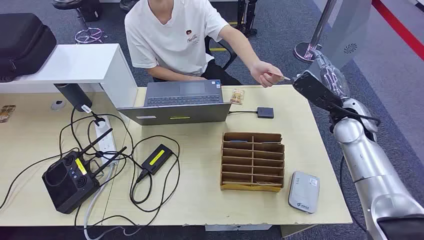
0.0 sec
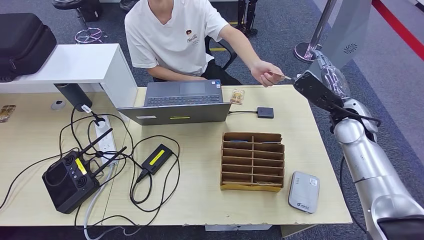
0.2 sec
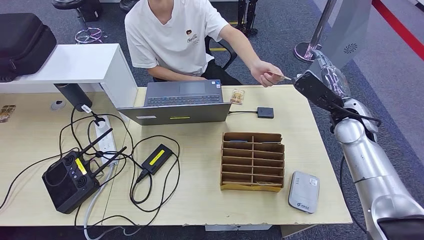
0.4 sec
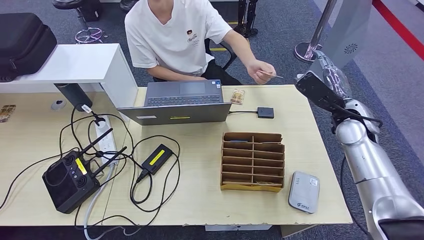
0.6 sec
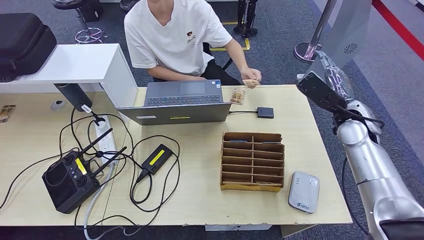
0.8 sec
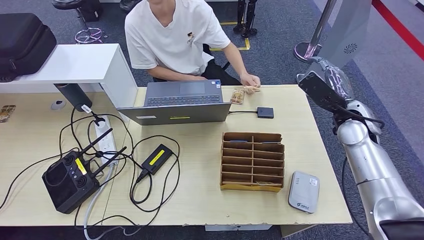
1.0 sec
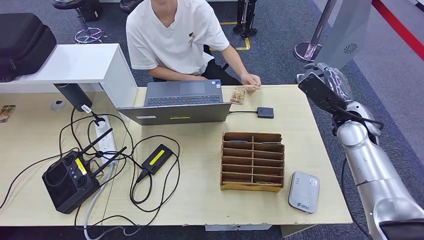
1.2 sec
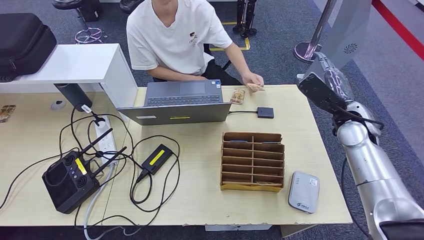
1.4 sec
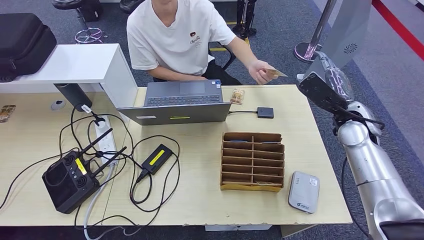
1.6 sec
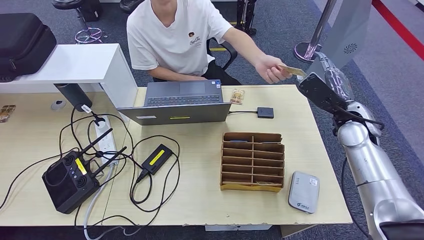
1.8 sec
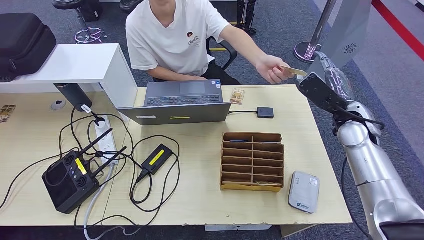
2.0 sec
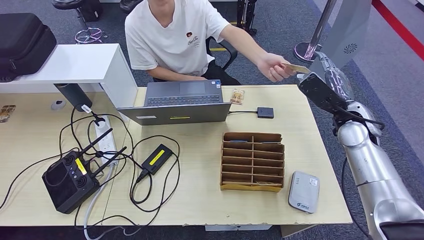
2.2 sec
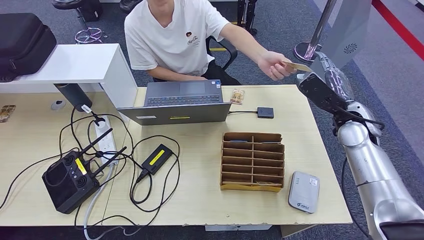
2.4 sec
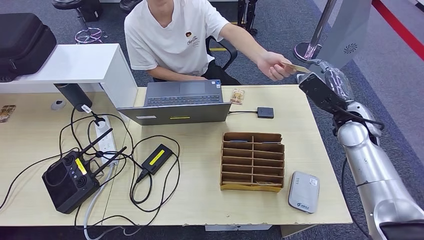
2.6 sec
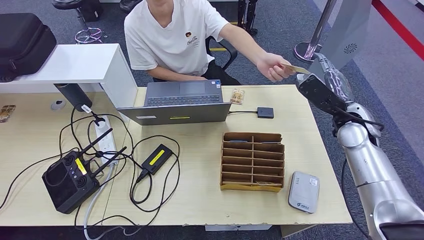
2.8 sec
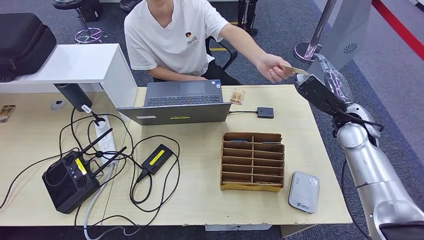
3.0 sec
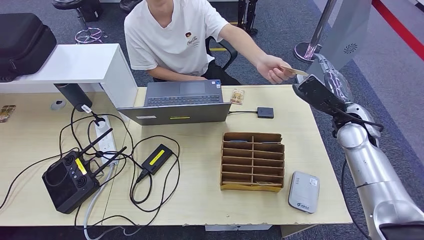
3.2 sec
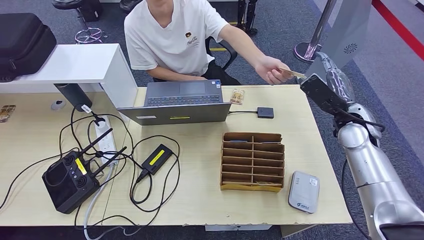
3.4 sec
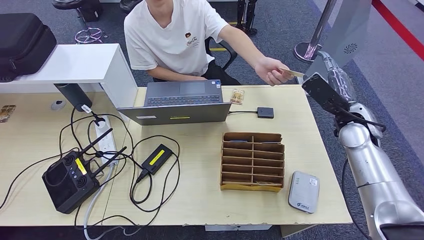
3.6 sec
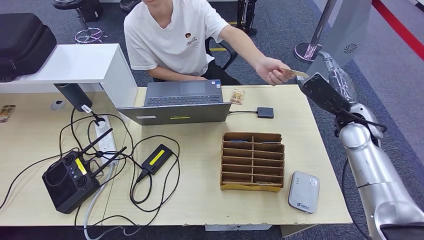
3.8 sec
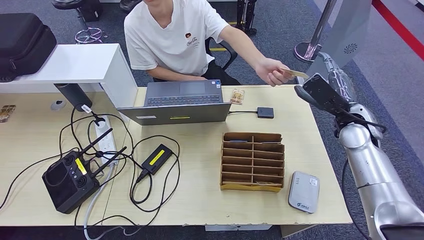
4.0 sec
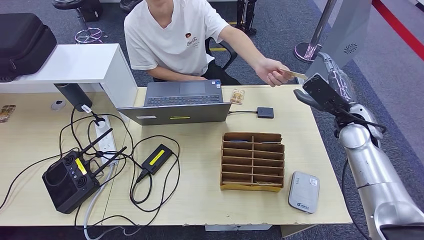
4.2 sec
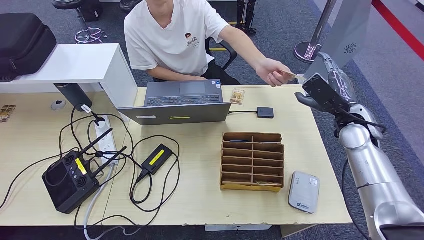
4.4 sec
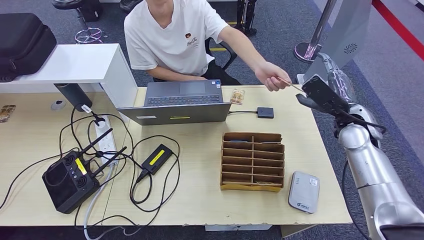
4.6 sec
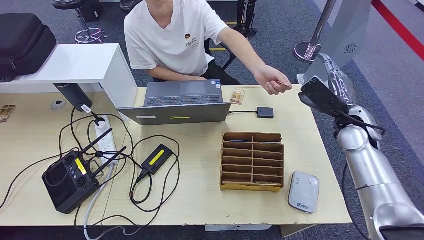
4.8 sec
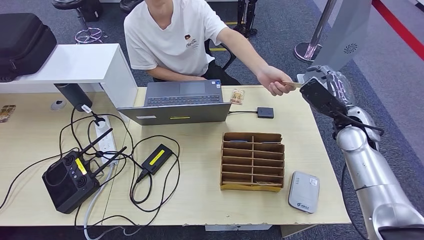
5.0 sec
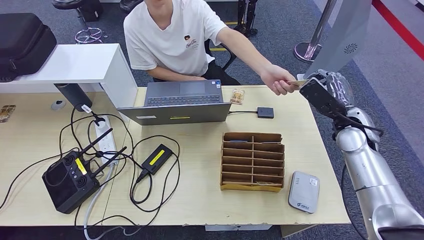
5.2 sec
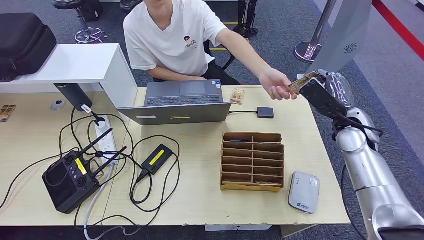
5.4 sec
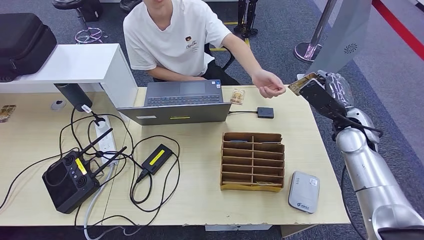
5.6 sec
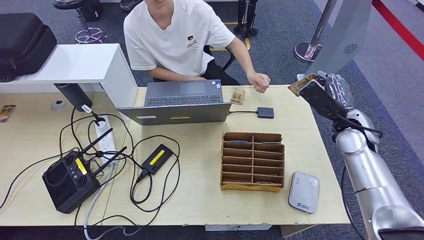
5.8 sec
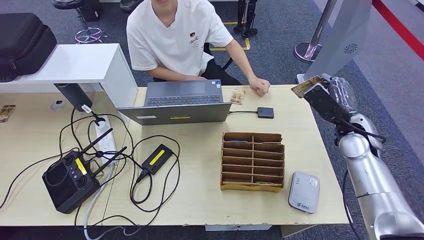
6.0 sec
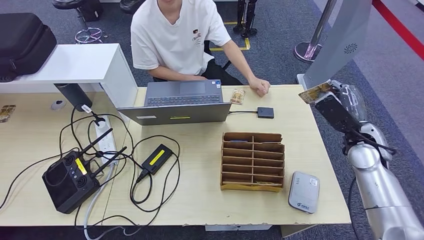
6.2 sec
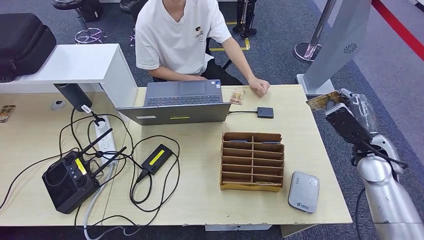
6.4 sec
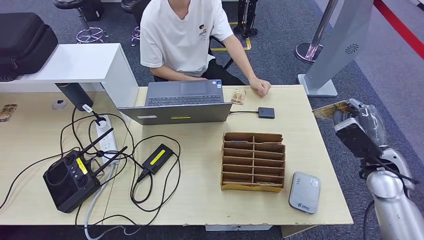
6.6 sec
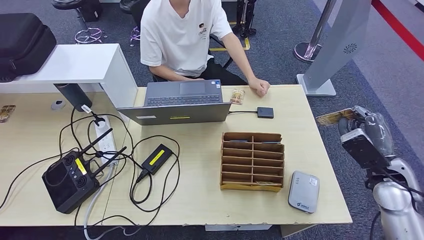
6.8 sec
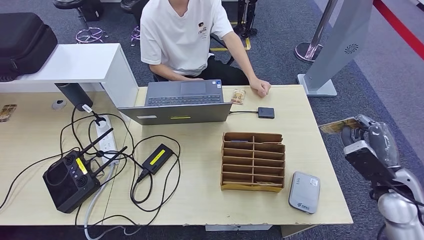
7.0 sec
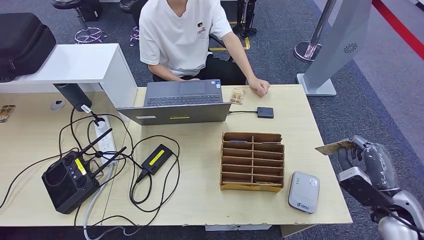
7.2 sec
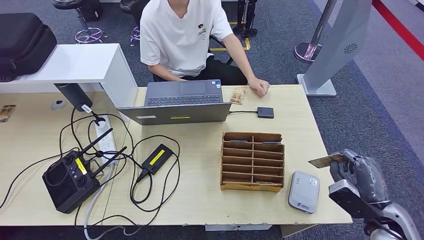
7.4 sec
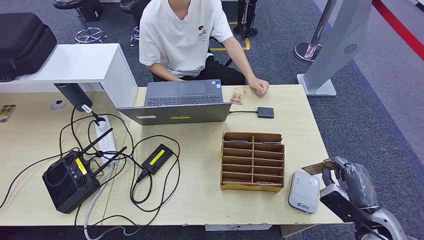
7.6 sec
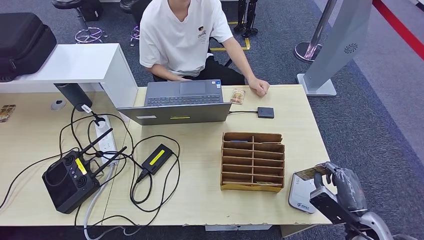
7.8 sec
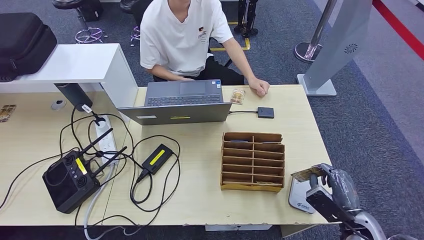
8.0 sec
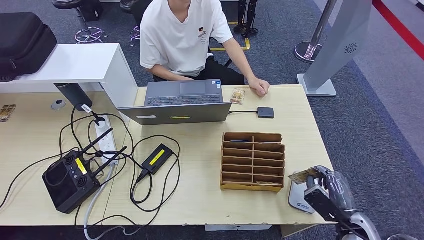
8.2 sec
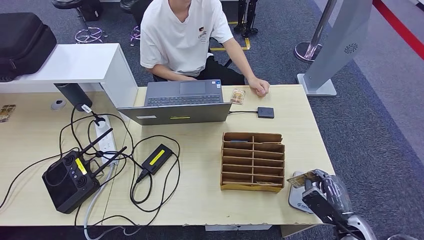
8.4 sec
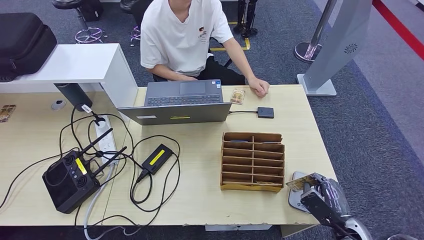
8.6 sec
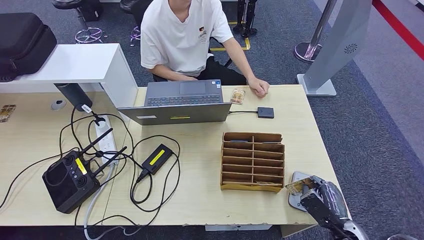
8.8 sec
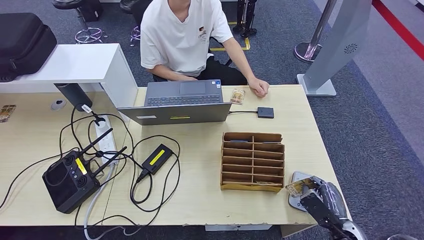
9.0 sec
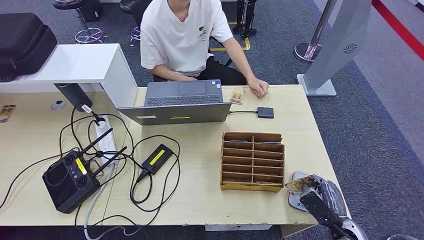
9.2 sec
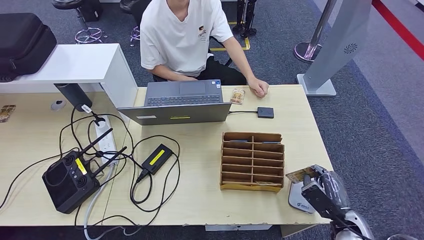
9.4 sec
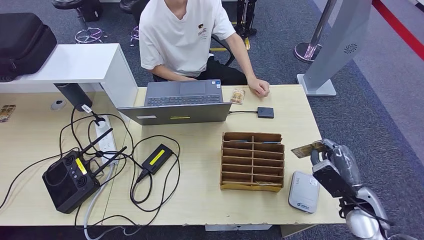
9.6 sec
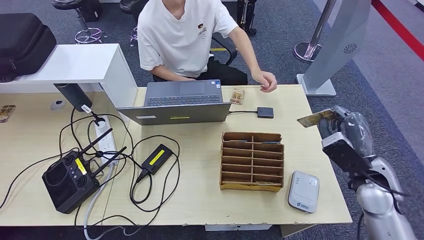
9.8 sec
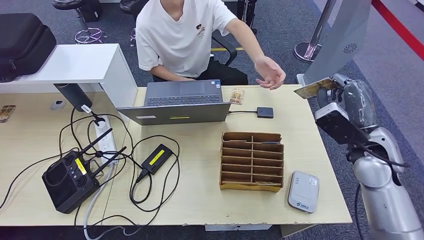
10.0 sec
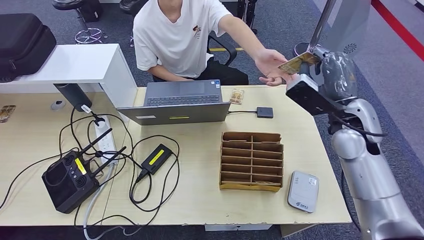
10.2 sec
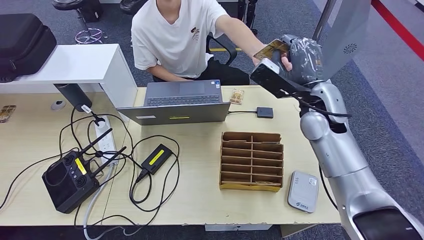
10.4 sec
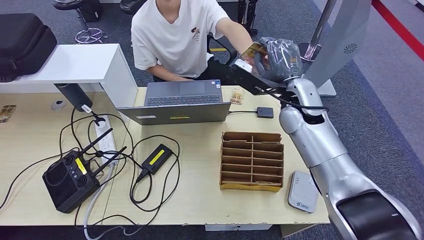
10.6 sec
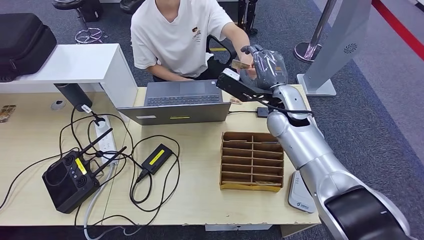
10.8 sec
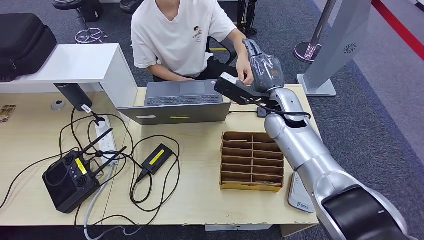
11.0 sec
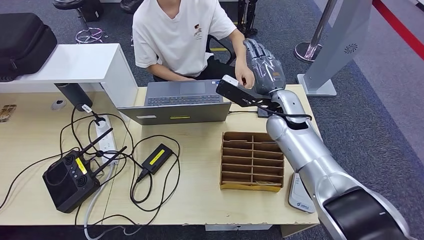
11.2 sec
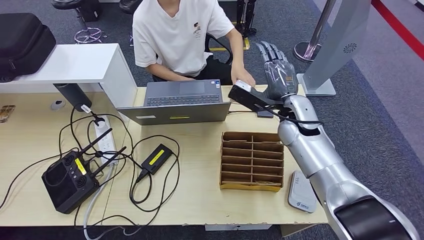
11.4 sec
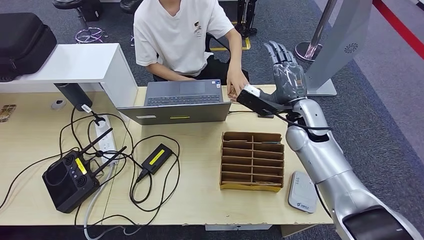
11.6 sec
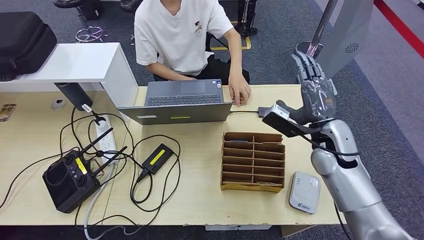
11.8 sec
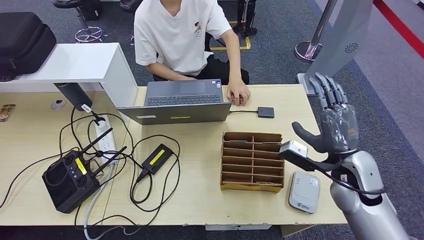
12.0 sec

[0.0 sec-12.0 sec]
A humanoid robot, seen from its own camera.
Step, 0.0 sec to 4.8 sec: Take the ID card from the person's hand.
Step, 5.2 sec to 6.6 sec: Place the ID card on the card reader.
1.6 sec to 4.4 sec: Both hands stay put.
4.4 sec to 6.0 sec: The hands move only a little.
6.0 sec to 7.6 sec: The right hand is displaced backward and downward by about 25 cm.
7.6 sec to 9.0 sec: The right hand heads downward, covering about 10 cm.
9.0 sec to 10.4 sec: The right hand moves upward and forward, approximately 35 cm.
10.4 sec to 12.0 sec: The right hand travels backward, downward and to the right by roughly 15 cm.

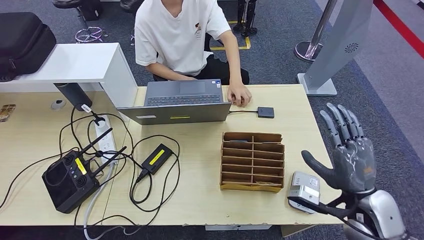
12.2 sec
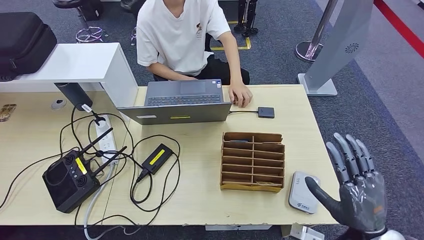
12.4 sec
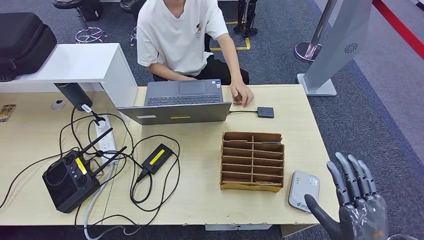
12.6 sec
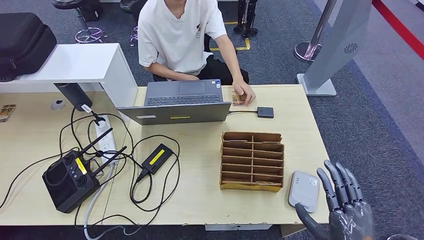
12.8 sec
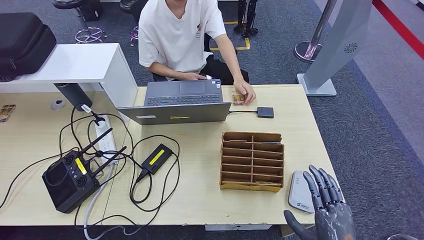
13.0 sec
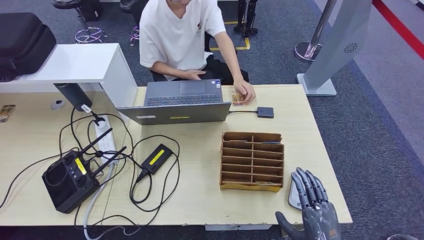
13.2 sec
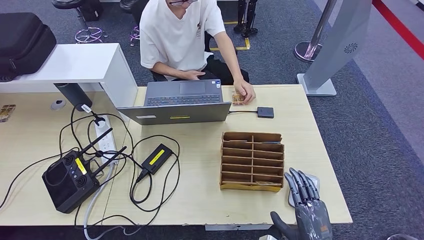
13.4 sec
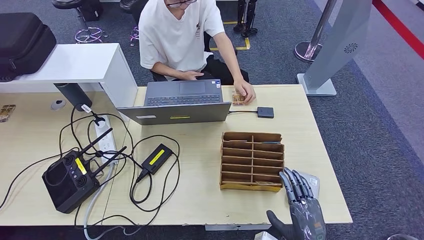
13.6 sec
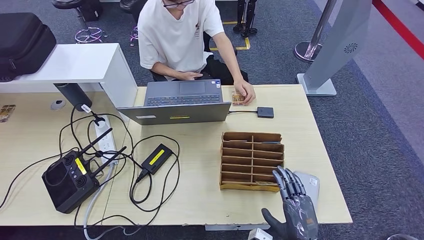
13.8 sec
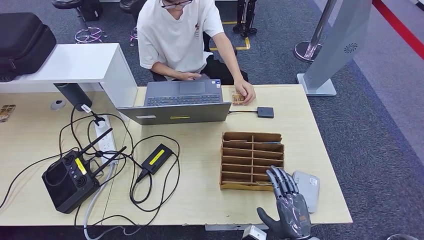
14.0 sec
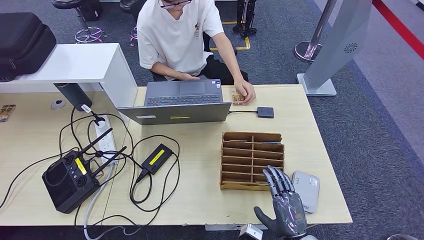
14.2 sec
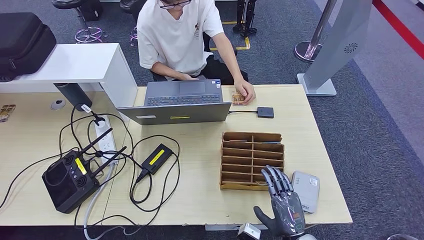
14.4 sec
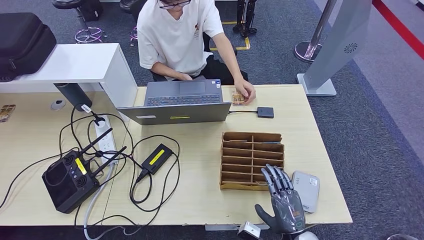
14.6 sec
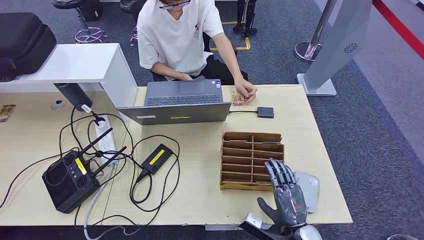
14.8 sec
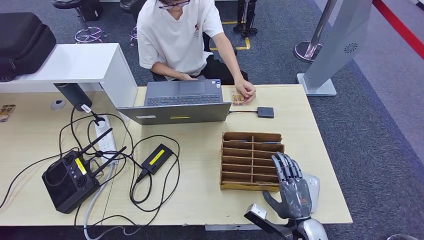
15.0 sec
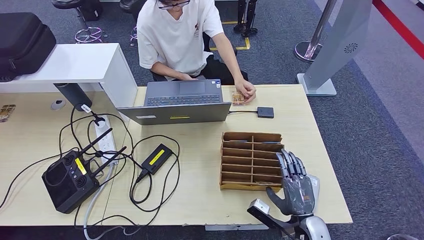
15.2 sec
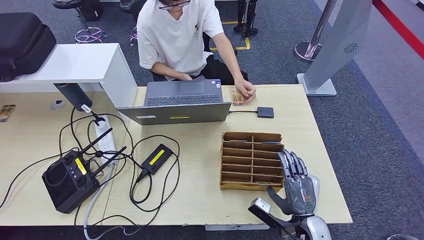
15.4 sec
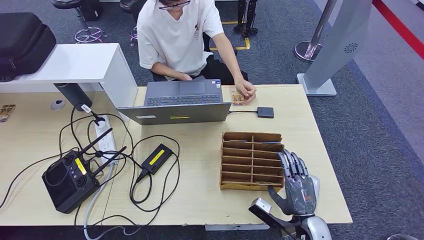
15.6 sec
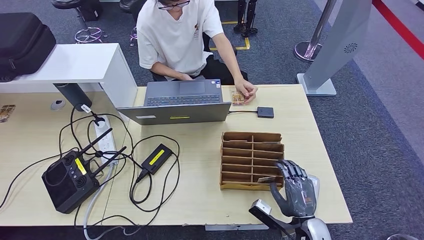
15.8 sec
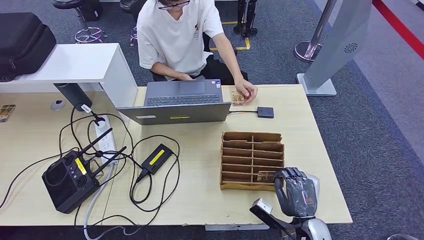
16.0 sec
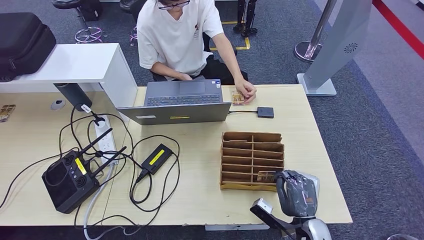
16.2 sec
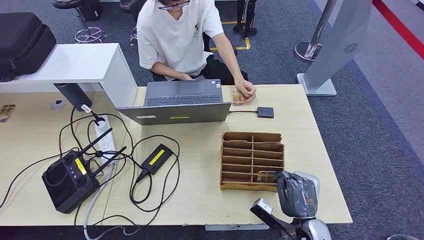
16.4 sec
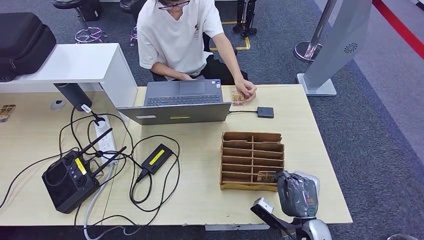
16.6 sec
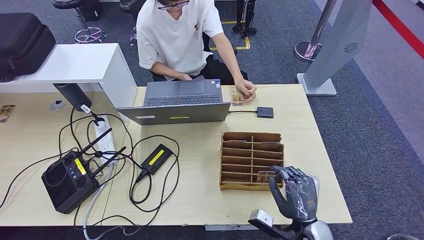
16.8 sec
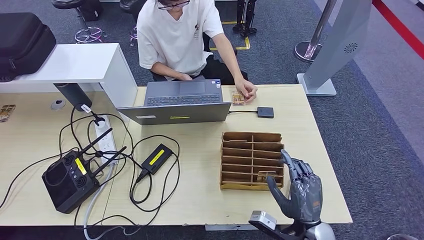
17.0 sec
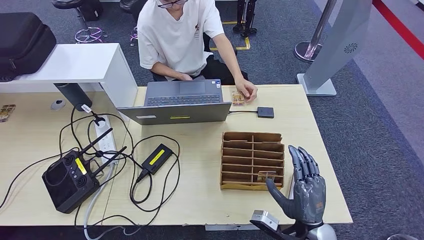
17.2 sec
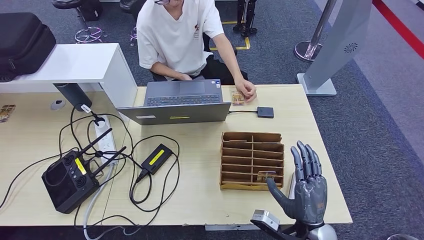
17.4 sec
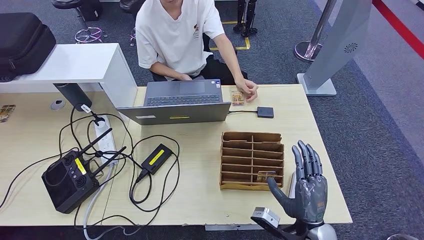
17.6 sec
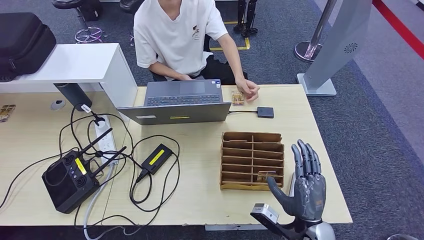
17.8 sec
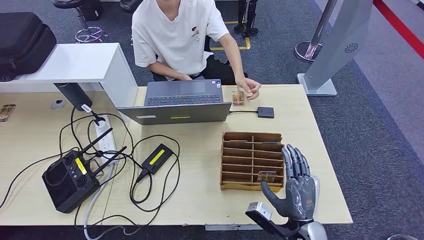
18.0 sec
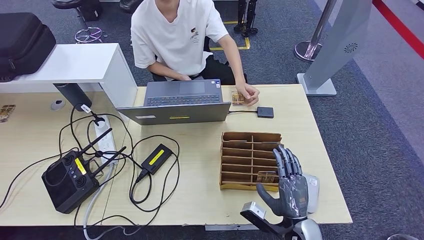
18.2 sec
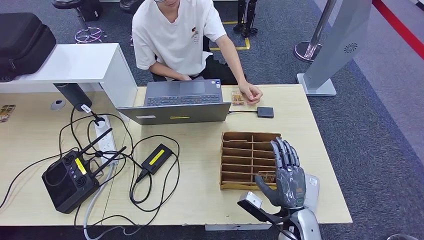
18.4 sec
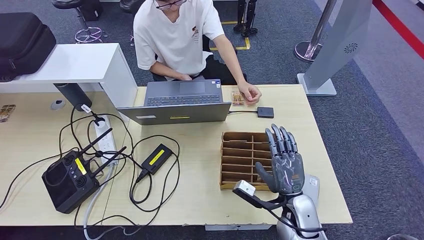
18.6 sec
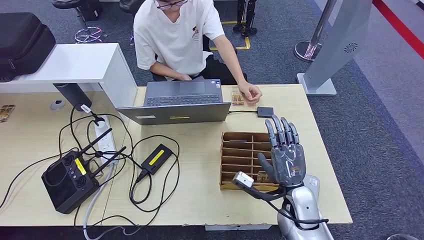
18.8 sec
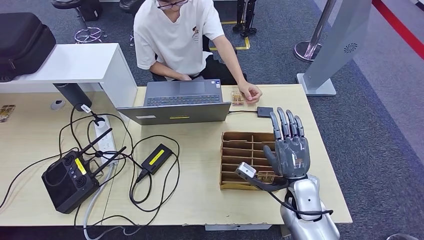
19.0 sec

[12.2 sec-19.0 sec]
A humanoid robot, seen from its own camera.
12.2 sec to 13.6 sec: The right hand is displaced downward, backward and to the left by approximately 20 cm.
13.6 sec to 15.0 sec: The right hand is displaced forward by some 5 cm.
15.0 sec to 16.2 sec: The hands move only a little.
16.2 sec to 17.6 sec: The right hand moves upward, approximately 5 cm.
17.6 sec to 19.0 sec: The right hand heads forward, covering approximately 10 cm.
